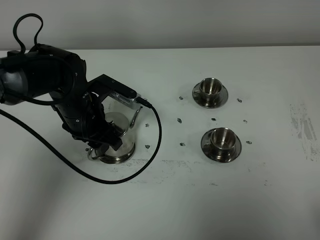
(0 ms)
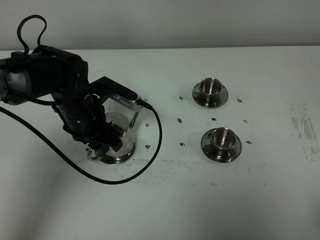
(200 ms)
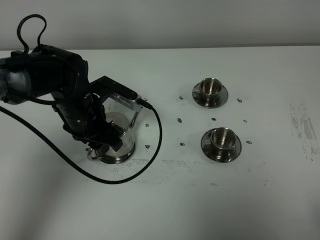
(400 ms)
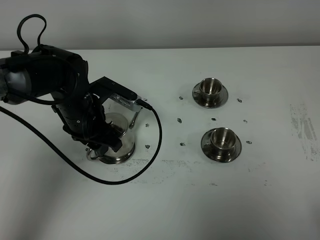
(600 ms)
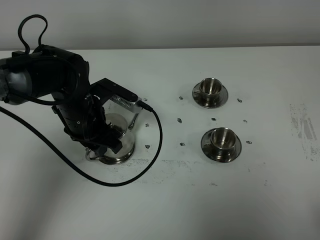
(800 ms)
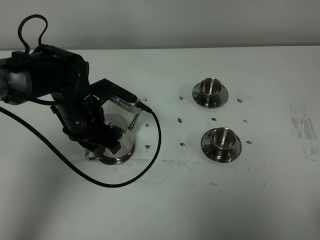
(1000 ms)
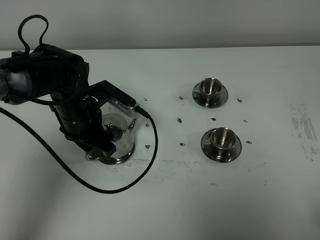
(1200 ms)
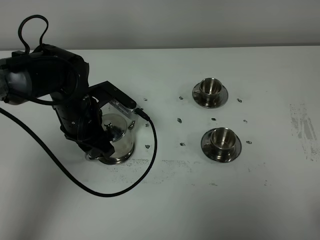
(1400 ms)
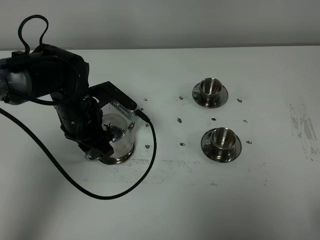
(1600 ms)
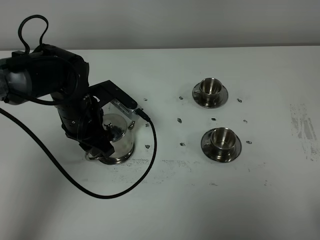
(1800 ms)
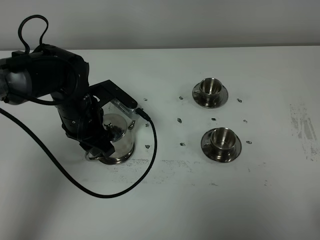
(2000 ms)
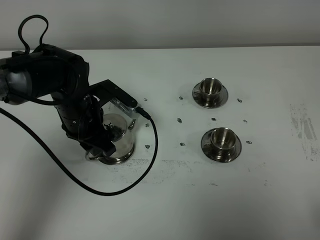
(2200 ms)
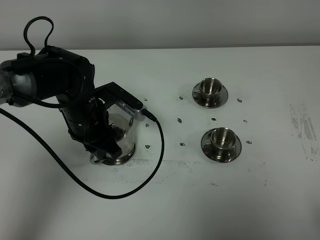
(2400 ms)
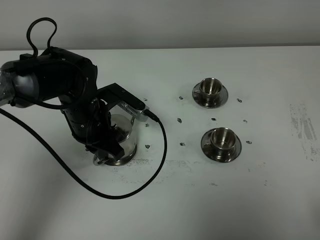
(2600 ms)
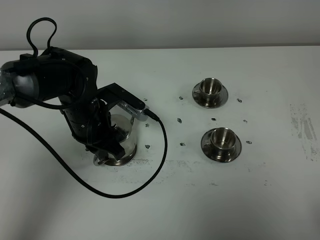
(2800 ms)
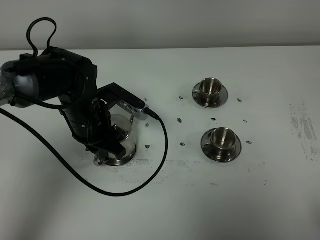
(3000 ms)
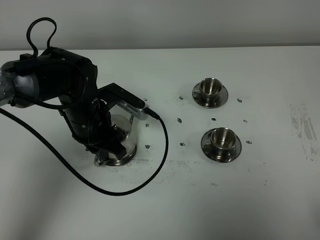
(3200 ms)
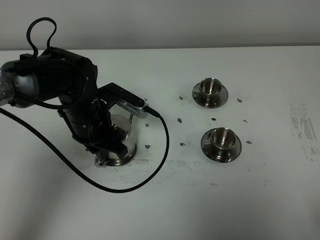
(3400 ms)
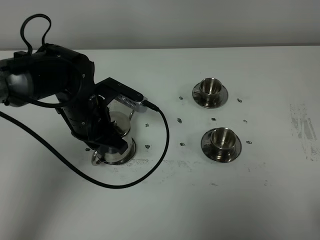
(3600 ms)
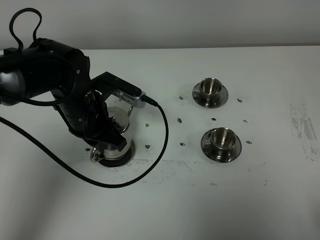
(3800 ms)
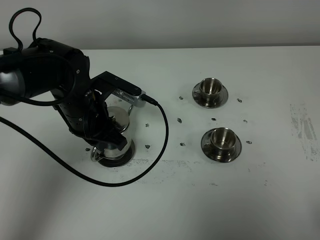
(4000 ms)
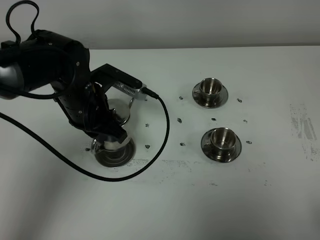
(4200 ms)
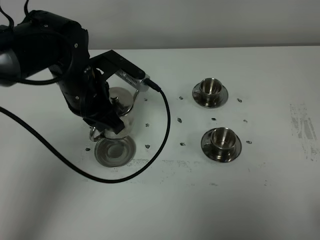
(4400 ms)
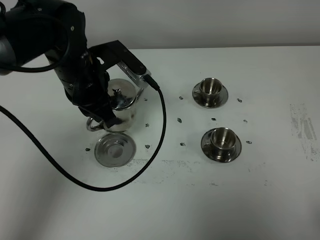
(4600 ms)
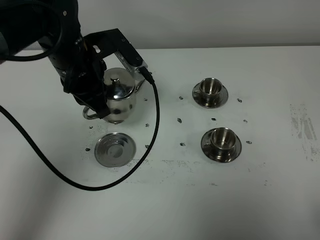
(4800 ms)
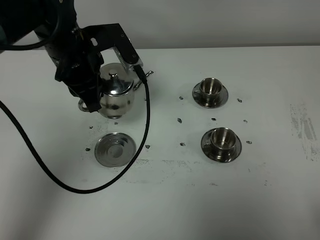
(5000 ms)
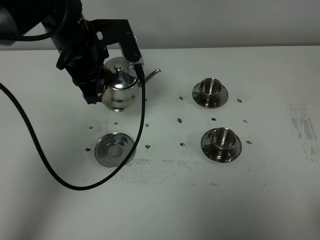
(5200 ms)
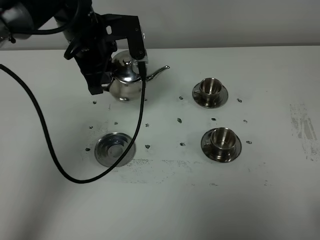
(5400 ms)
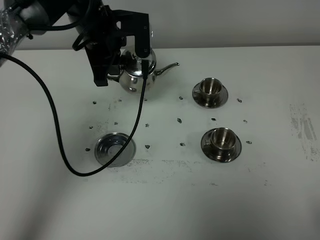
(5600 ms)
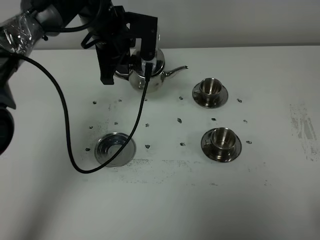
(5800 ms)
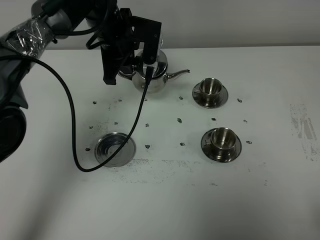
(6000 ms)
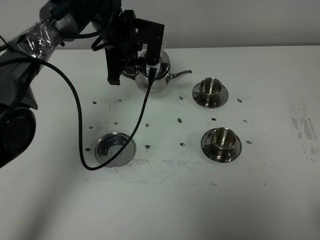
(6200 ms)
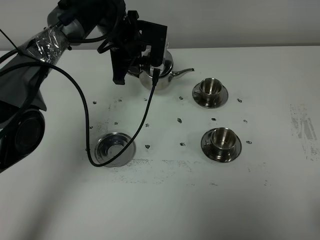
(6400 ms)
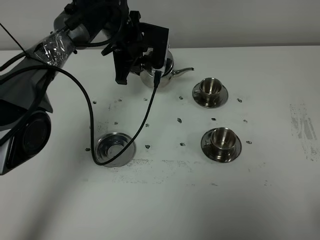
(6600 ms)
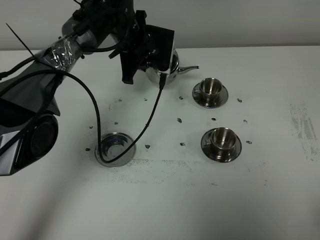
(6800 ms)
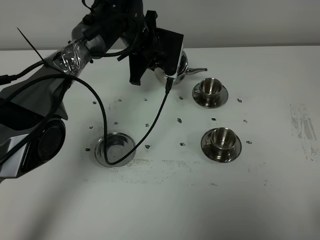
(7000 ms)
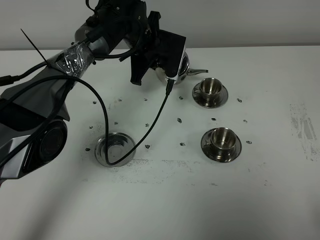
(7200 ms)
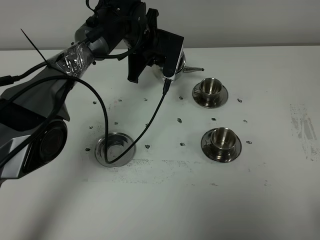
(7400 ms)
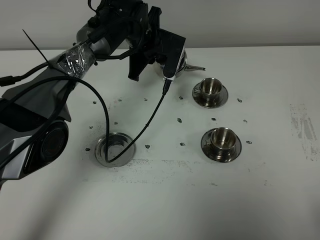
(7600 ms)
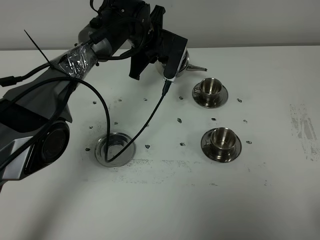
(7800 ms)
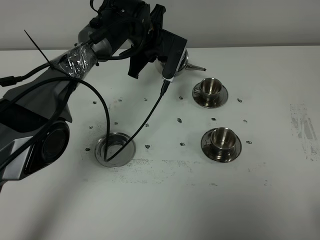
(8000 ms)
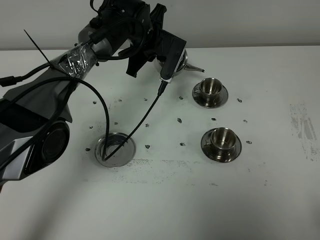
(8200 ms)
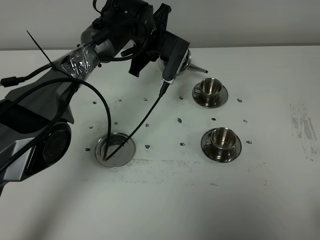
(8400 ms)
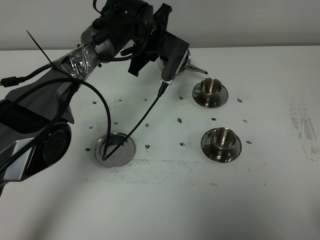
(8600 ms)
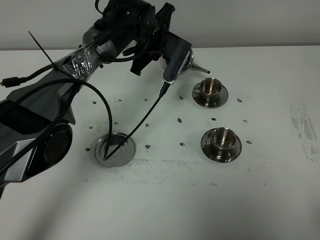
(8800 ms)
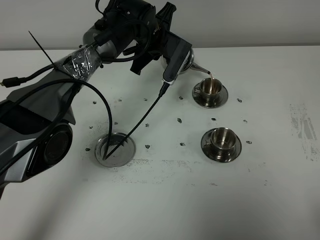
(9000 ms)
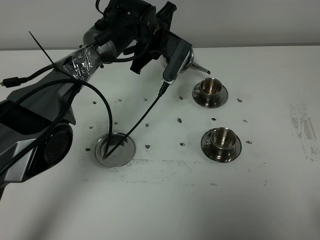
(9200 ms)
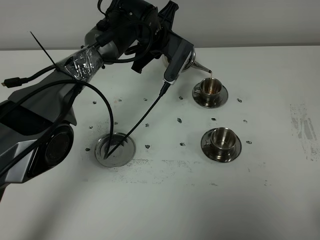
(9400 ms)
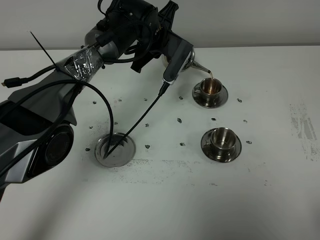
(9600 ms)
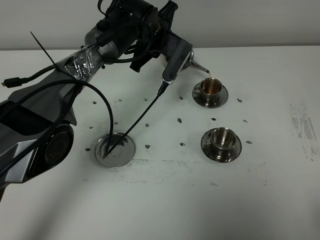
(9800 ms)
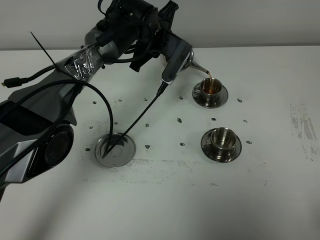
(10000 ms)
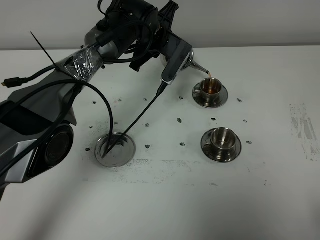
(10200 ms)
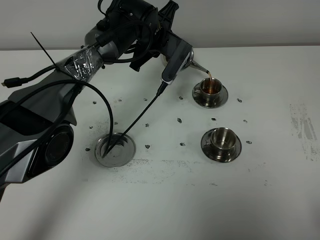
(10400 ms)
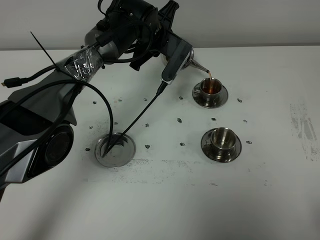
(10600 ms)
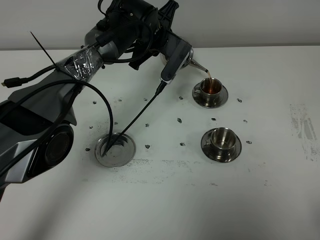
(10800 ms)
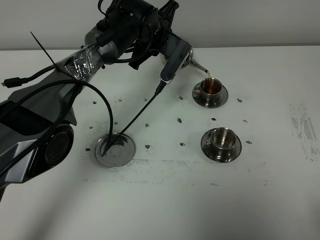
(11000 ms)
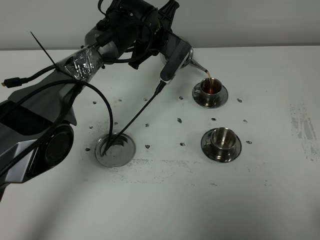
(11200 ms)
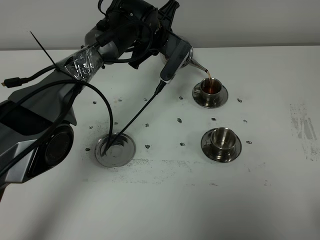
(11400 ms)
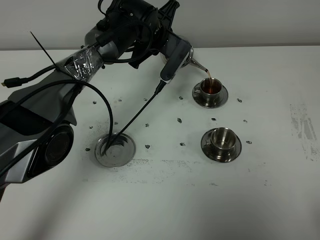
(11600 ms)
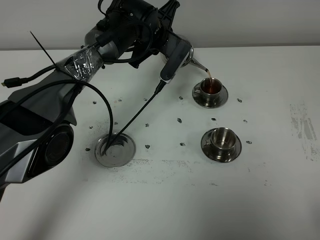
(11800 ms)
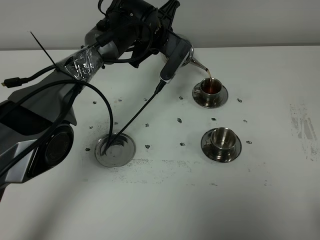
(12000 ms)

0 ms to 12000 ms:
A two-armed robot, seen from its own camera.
Task of the whole recording: grasp the stainless steel teapot and pour the tea into the two stainless steel teacups one by one, put the stainless steel teapot back in its original place.
Step, 0 ms to 4000 ms: Pick up the teapot with the left gripper.
0 ms to 1600 ms: There are only small adjustments of the grippers.
1600 ms to 3000 ms: The left gripper closes up.
3000 ms to 4400 ms: The left gripper heads upward, covering some 5 cm.
4400 ms to 6000 ms: The left gripper goes about 10 cm forward.
6000 ms to 7600 ms: The left gripper ends up some 5 cm from where it was.
7600 ms to 9000 ms: The grippers make only small movements.
9000 ms to 10400 ms: Neither gripper changes place.
10400 ms to 12000 ms: Both grippers stay put.

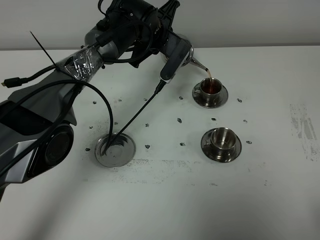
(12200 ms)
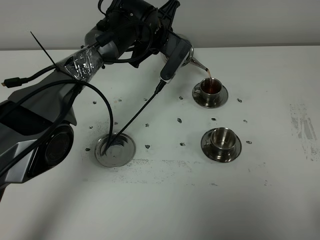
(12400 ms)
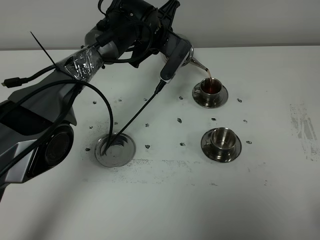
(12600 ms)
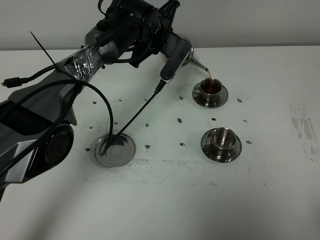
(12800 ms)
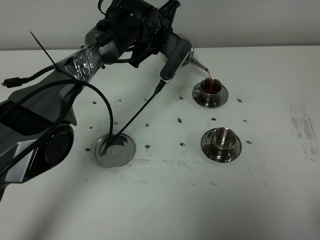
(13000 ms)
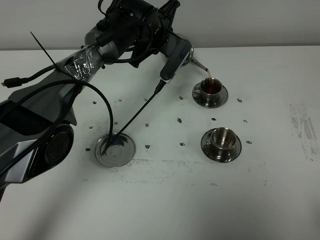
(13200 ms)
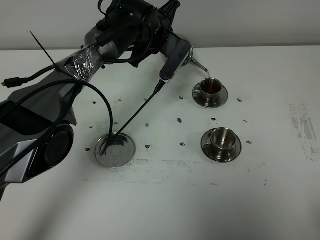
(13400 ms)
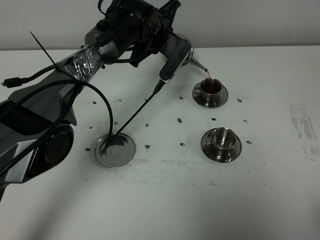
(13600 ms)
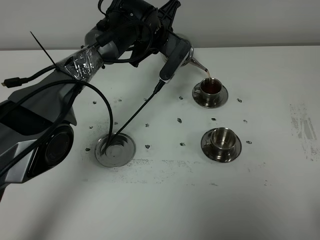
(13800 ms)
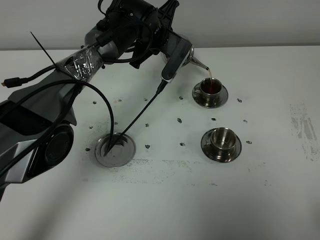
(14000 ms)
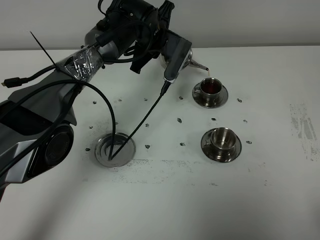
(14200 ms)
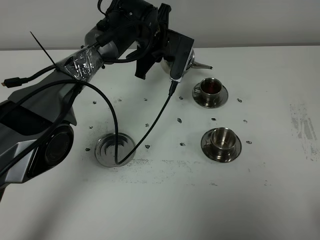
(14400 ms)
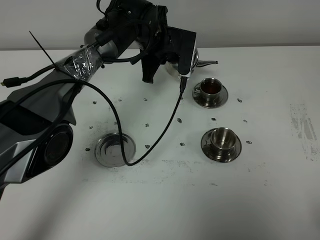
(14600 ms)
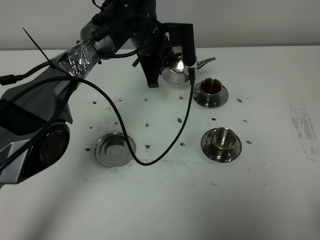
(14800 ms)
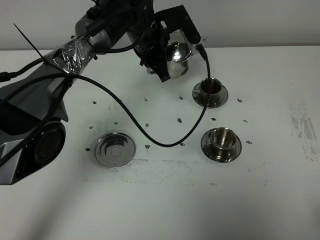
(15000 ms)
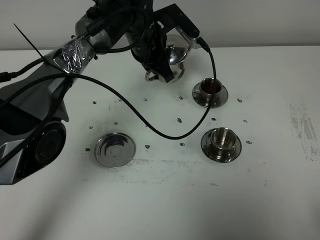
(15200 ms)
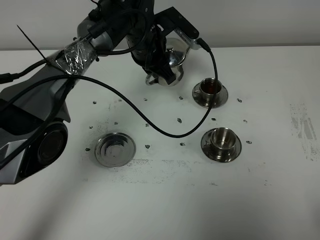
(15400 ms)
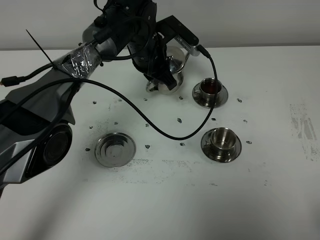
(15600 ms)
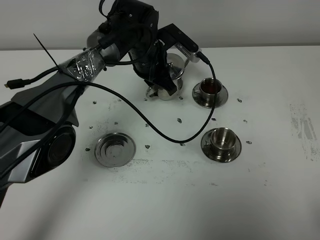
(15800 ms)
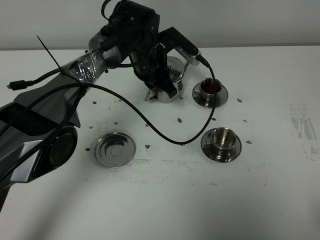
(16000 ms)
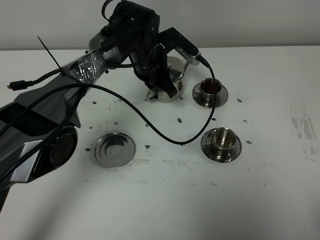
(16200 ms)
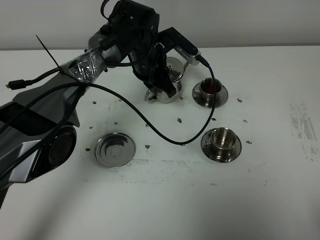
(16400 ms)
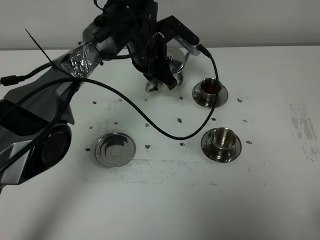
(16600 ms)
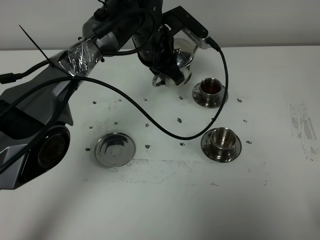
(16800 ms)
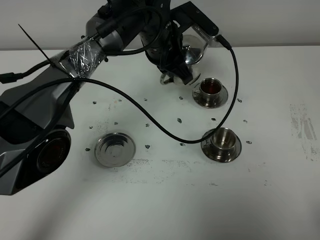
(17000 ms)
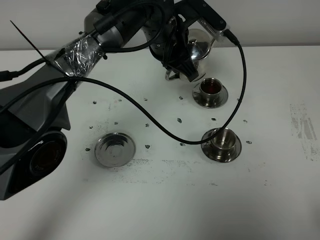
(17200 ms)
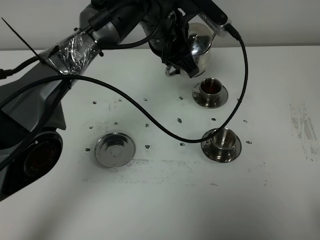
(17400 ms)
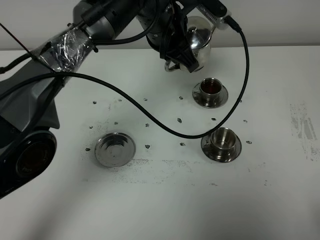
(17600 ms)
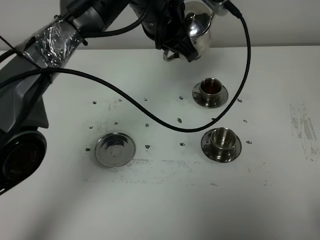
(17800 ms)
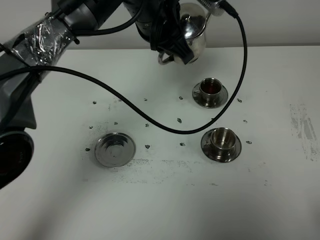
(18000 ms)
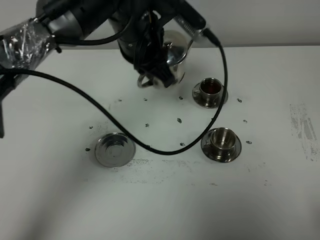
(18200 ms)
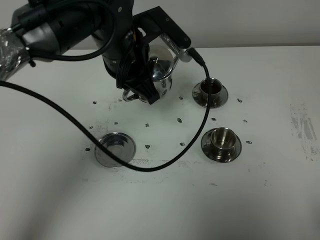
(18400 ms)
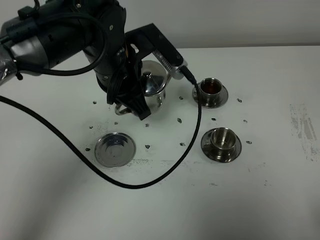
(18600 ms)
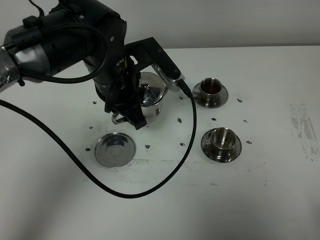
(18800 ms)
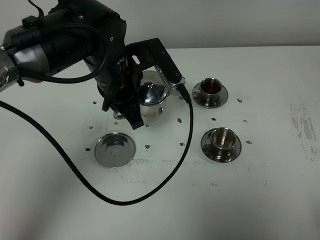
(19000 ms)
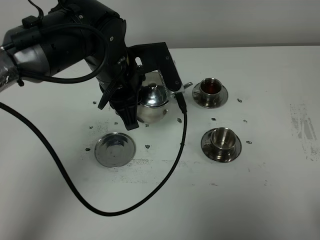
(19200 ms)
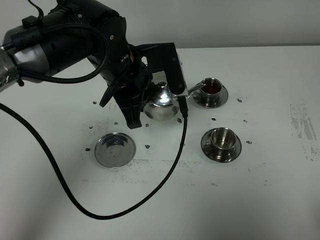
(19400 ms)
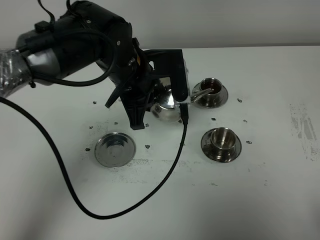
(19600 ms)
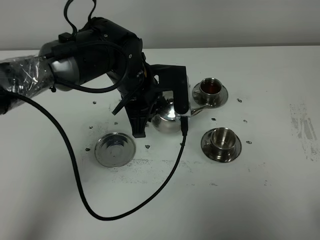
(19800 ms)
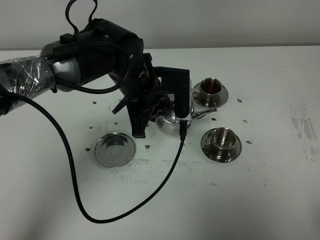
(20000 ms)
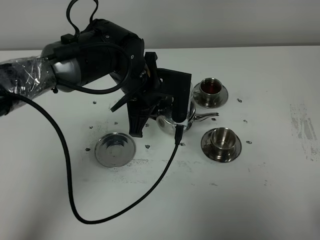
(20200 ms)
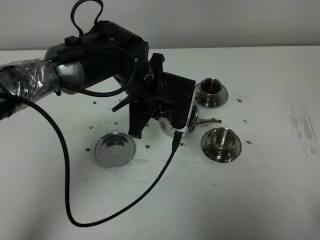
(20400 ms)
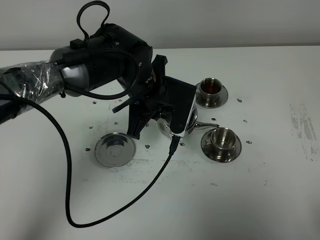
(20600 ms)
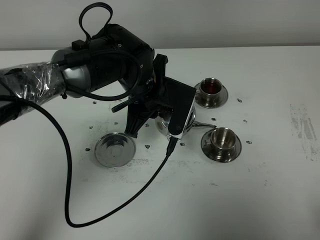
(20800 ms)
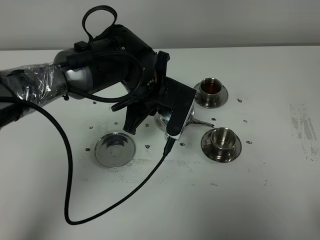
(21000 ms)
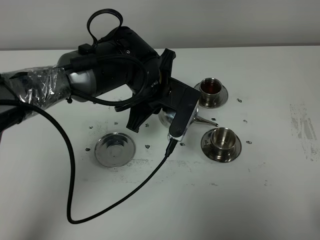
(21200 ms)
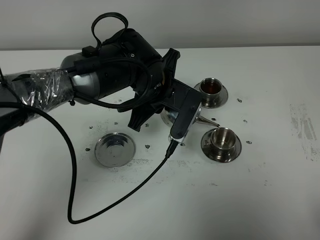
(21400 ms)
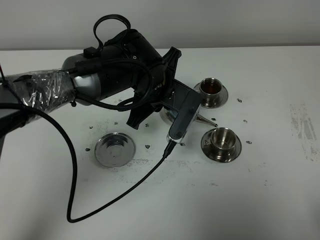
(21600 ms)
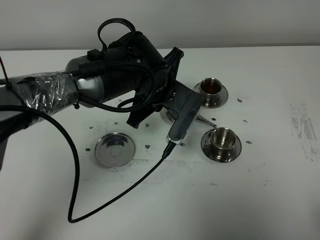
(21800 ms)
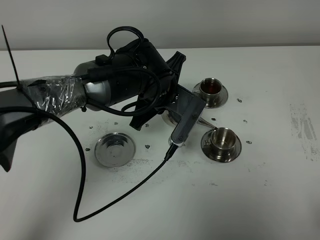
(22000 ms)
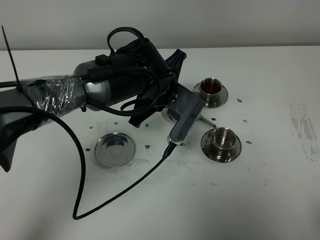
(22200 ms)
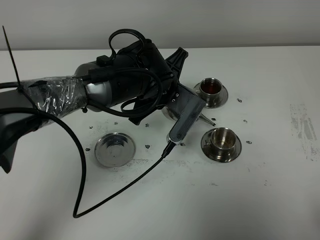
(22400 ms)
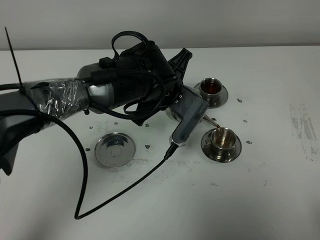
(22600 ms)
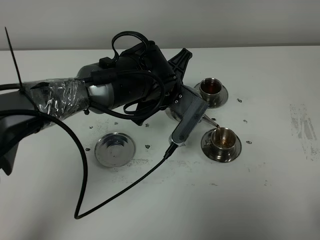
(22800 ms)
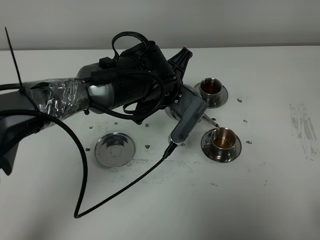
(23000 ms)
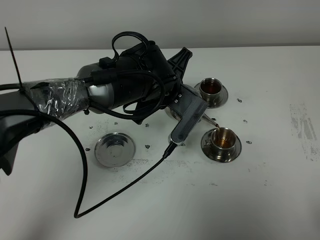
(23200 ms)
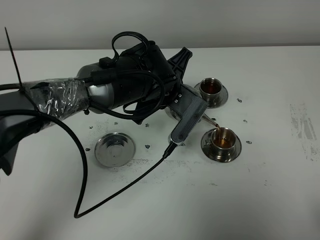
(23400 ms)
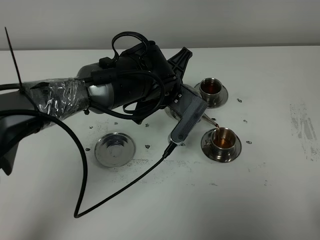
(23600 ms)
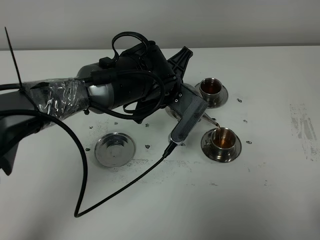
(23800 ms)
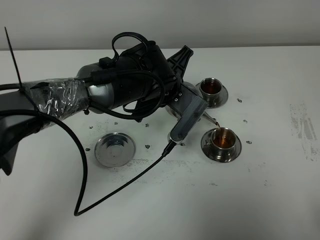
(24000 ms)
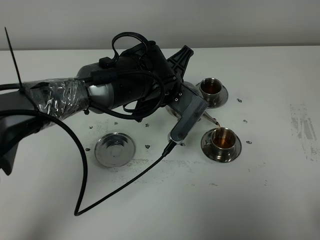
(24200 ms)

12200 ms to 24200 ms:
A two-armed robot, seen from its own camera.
Task of the whole recording: grasp the stainless steel teapot and pour the tea into the two stainless steel teacups one by one, put the stainless steel teapot back in its original place.
Step, 12200 ms to 14200 ms: Pour tea into the teacup with the left gripper.
12200 ms to 13800 ms: Both grippers stay about where they are.
15200 ms to 16600 ms: There are only small adjustments of the grippers.
16600 ms to 18200 ms: The left gripper travels upward and backward by some 15 cm.
18200 ms to 19800 ms: The left gripper travels downward by roughly 10 cm.
21200 ms to 22600 ms: The grippers stay close to where they were, moving slightly.
22600 ms to 24200 ms: Both grippers stay put.
